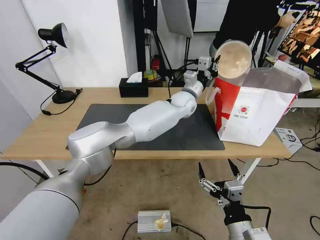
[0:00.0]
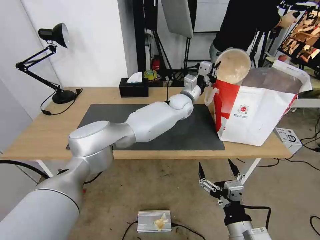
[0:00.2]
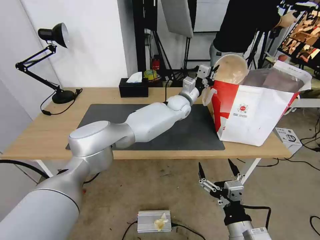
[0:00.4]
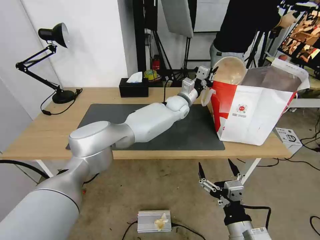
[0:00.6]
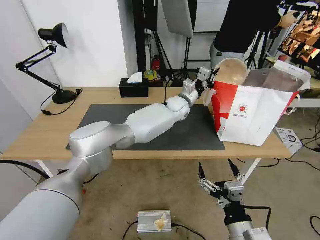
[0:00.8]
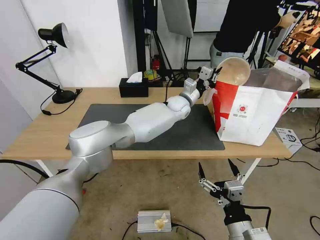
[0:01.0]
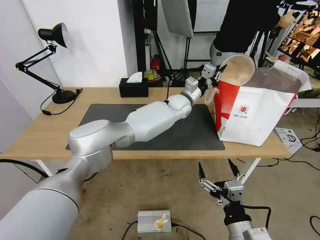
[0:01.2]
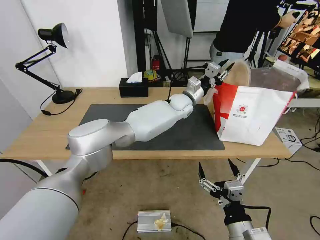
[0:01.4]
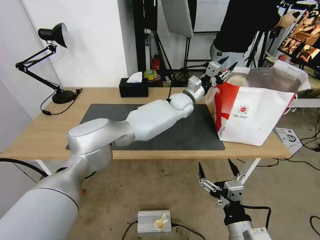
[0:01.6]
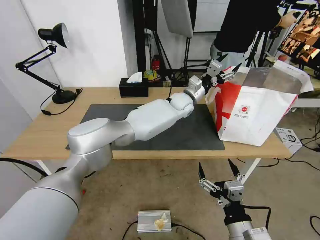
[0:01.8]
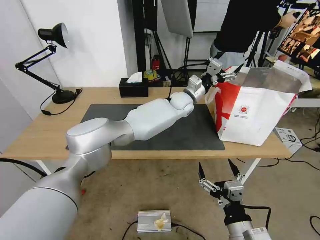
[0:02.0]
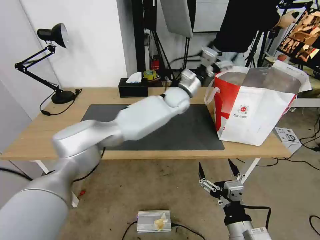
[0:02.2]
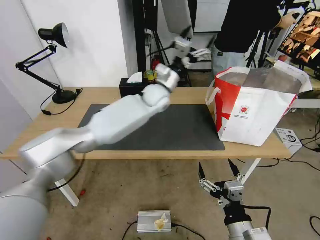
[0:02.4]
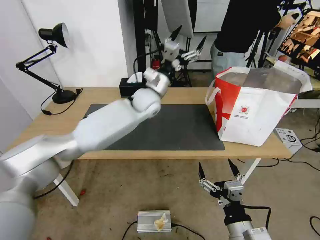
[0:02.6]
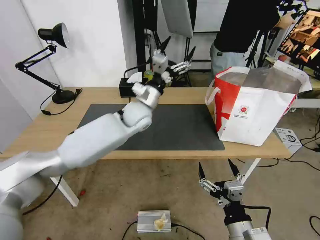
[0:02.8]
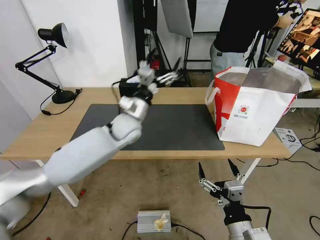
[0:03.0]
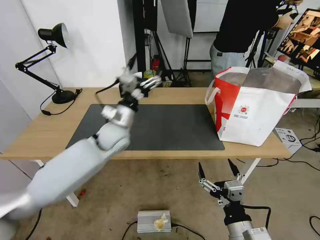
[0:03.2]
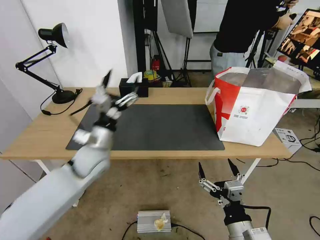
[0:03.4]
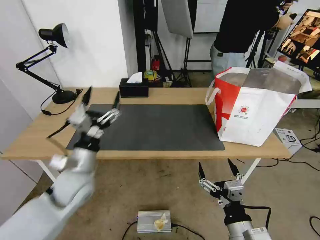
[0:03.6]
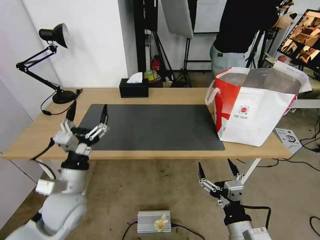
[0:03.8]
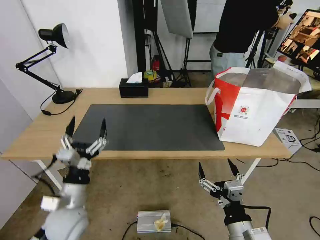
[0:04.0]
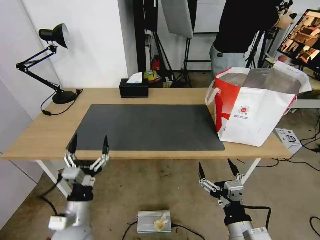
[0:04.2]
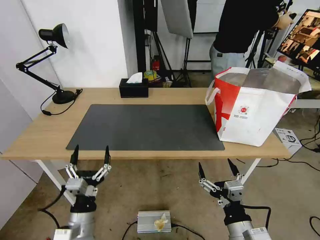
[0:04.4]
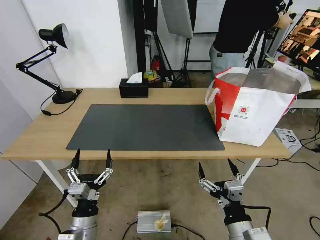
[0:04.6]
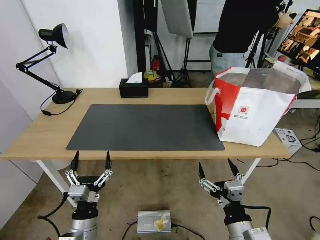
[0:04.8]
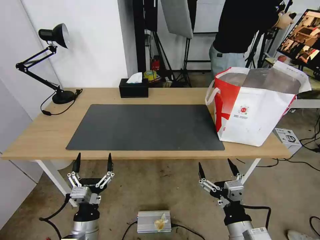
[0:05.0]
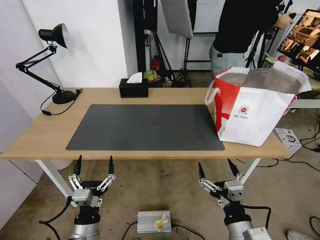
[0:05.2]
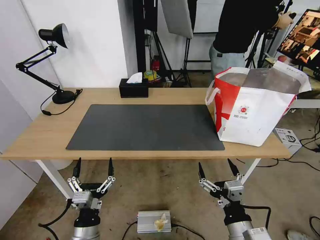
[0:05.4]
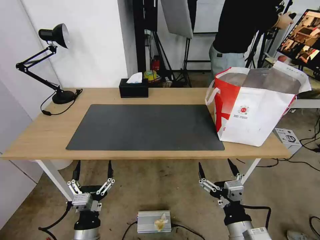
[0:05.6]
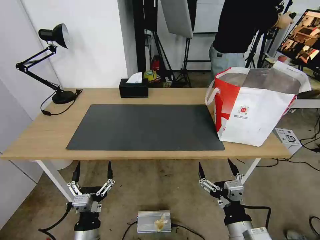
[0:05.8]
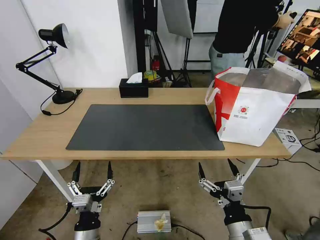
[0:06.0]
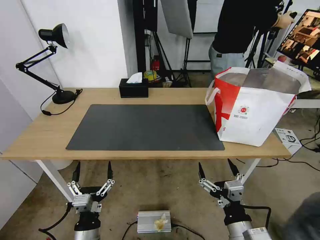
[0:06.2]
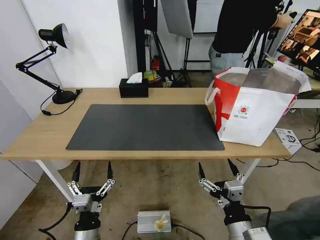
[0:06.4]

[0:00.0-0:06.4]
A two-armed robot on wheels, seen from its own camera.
Task of the whole recording: Pick up the trash from the table and place it into the takeout bag.
0:00.0 to 0:01.6: The left gripper opens up.
0:01.6 to 0:03.2: The left gripper travels to the left and backward by about 30 cm, and opens.
0:03.2 to 0:04.8: The left gripper goes some 30 cm backward and downward.
0:04.8 to 0:06.4: There are only small adjustments of the grippers.

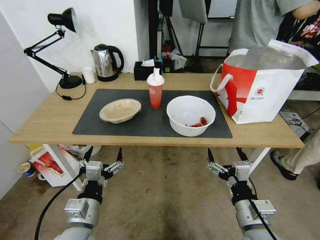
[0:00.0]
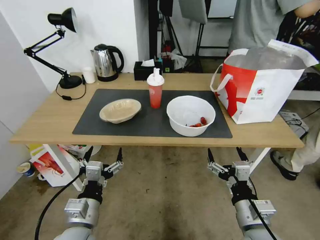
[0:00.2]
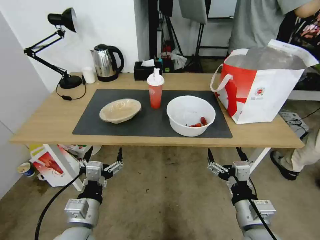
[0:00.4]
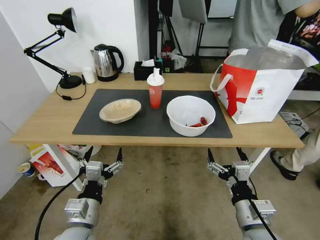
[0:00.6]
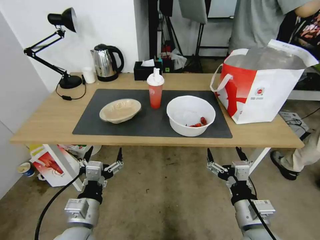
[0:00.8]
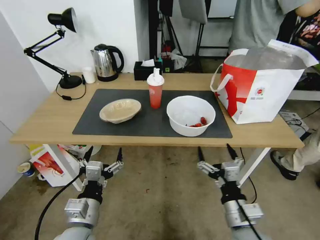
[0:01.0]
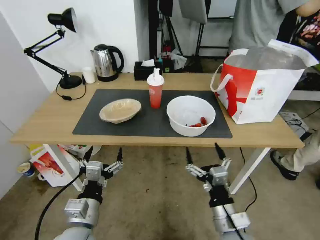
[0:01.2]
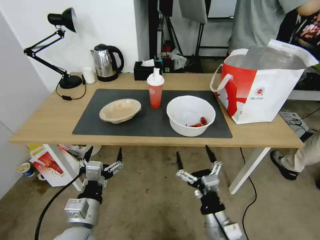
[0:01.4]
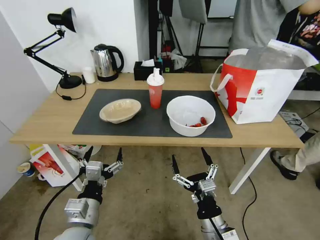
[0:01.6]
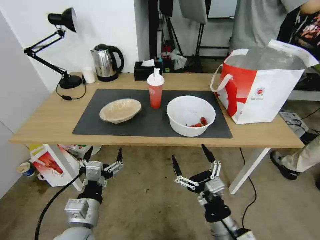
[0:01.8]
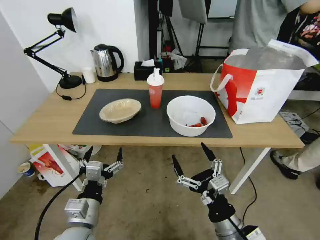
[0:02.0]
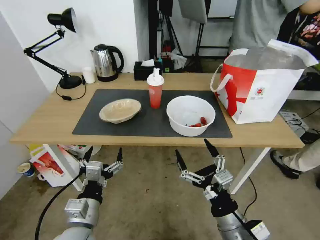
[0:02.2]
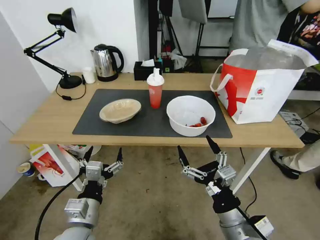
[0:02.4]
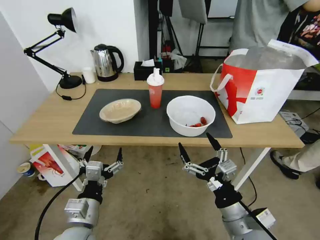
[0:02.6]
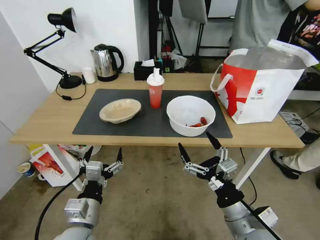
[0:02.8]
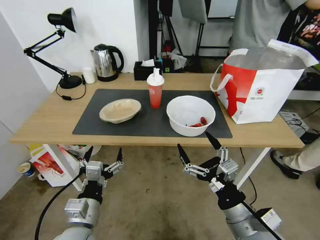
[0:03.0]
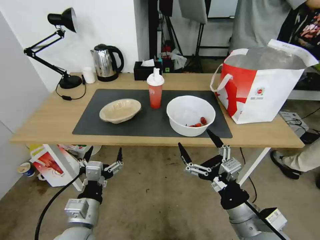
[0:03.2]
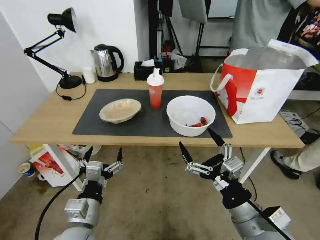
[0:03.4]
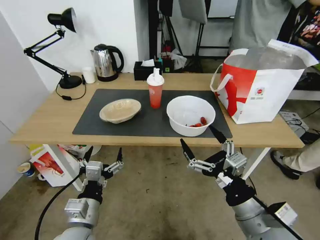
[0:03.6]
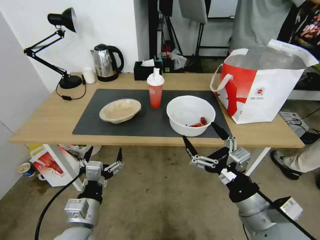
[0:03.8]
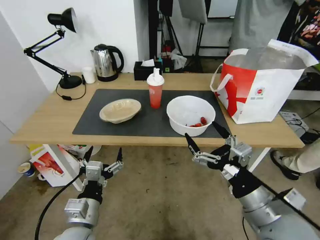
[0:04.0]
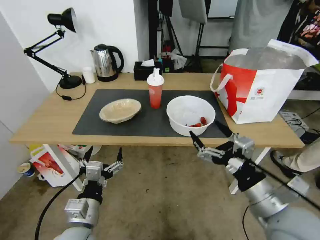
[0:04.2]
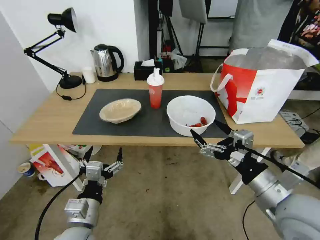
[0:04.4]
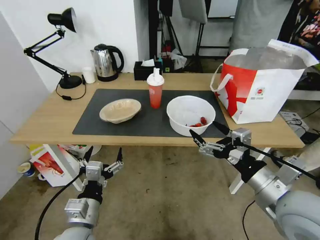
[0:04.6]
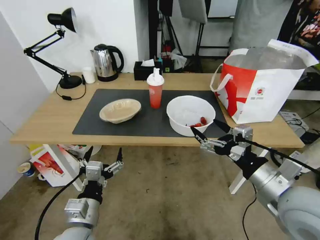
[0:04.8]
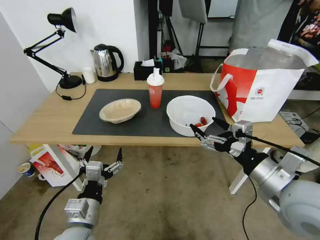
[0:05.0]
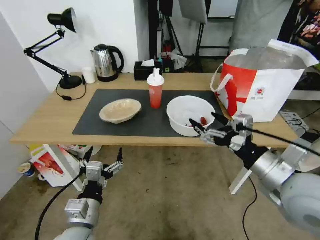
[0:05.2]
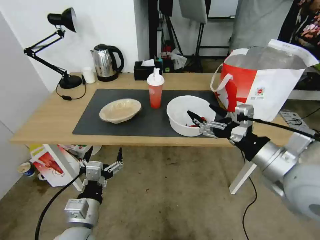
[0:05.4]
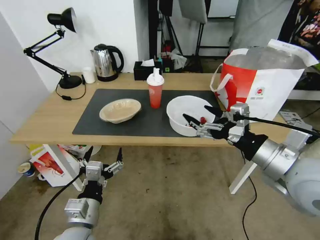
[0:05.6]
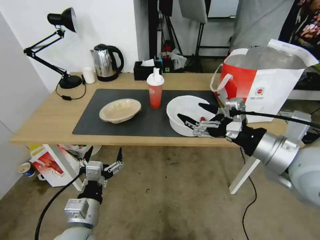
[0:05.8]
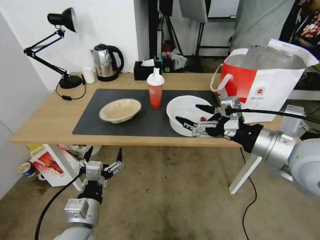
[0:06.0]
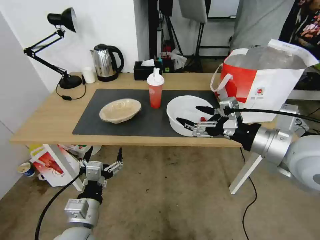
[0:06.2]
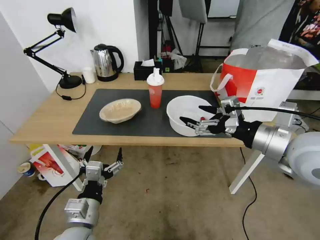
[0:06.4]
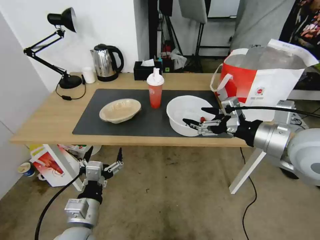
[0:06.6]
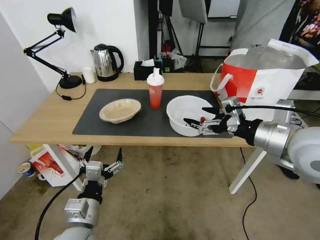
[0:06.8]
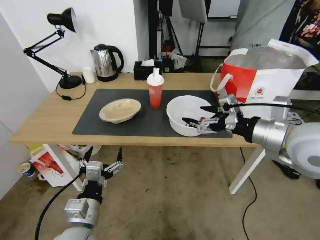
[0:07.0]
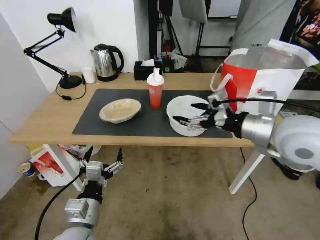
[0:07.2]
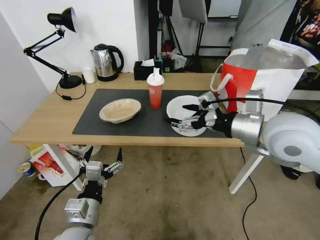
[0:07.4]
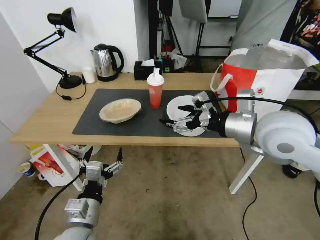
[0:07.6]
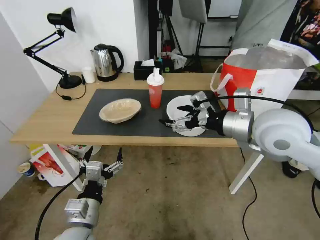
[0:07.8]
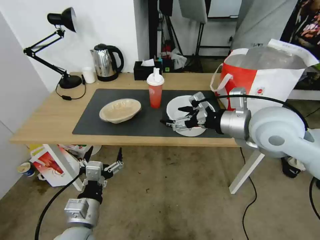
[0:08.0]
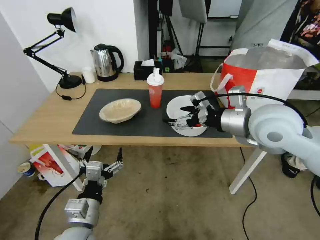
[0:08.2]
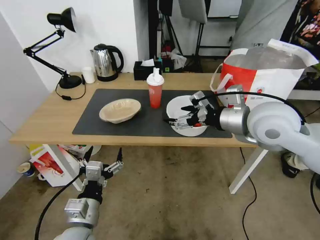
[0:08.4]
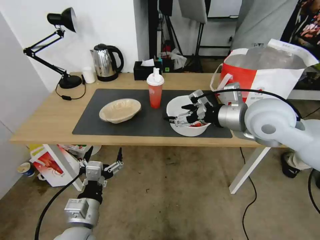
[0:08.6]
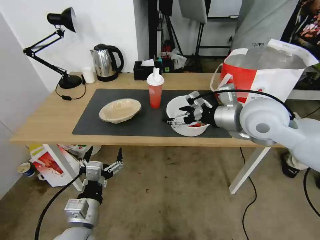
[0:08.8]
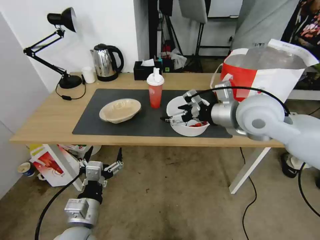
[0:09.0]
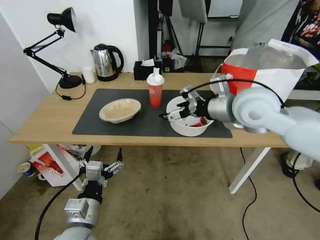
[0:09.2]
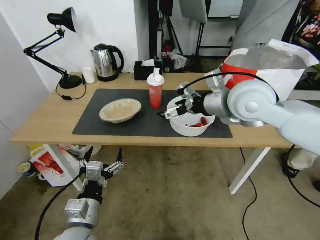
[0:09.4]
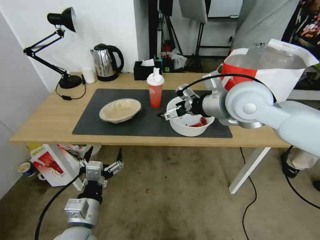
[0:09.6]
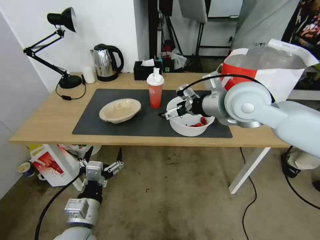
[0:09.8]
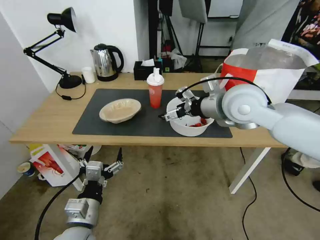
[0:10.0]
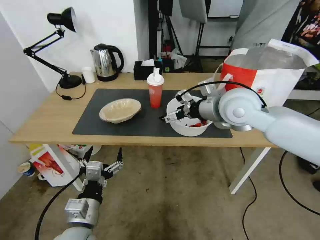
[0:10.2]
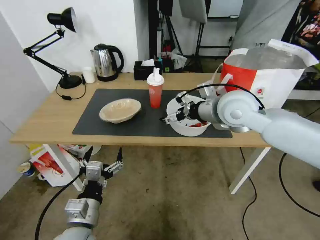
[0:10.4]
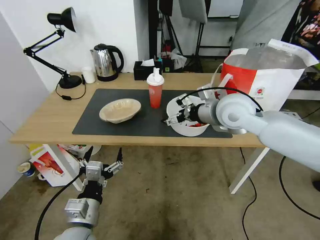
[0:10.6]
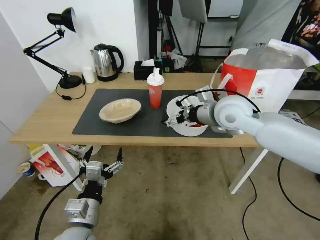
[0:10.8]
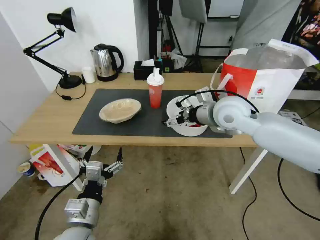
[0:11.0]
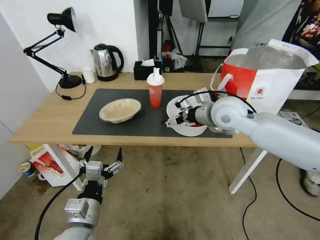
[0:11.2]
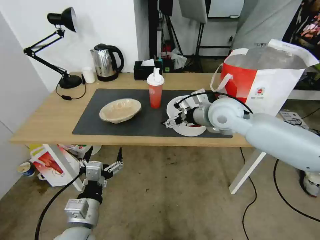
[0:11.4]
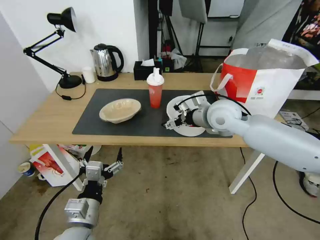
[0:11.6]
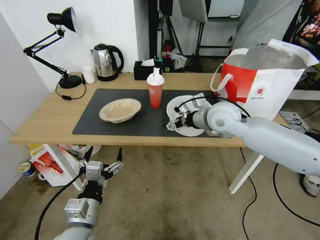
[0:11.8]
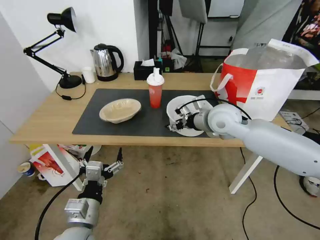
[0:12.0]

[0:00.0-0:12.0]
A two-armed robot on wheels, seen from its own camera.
Task of the whole recording: Pick up the trash from the table and place it into the takeout bag.
0:01.6 to 0:03.0: The right gripper goes roughly 10 cm upward and to the right.
0:03.0 to 0:04.4: The right gripper goes about 10 cm upward and to the right.
0:04.4 to 0:06.0: The right gripper travels upward and forward by roughly 10 cm.
0:06.0 to 0:07.6: The right gripper moves forward, about 5 cm.
0:07.6 to 0:09.0: The right gripper is displaced forward by some 5 cm.
0:09.0 to 0:10.4: The grippers make only small movements.
0:10.4 to 0:12.0: The right gripper goes some 5 cm downward, and closes.

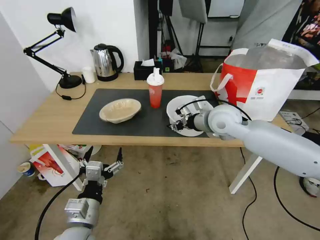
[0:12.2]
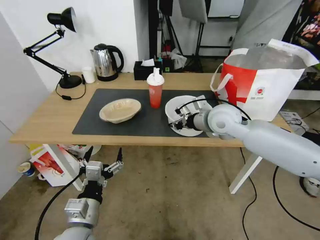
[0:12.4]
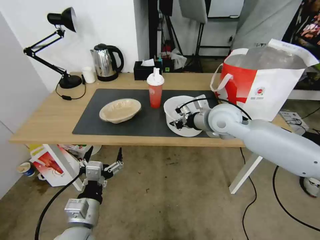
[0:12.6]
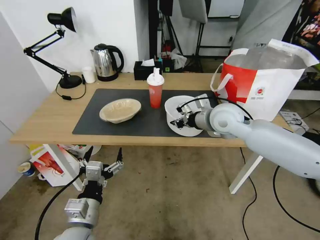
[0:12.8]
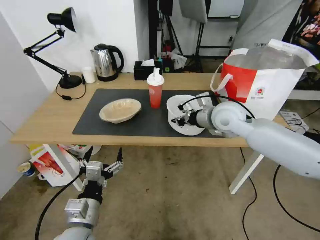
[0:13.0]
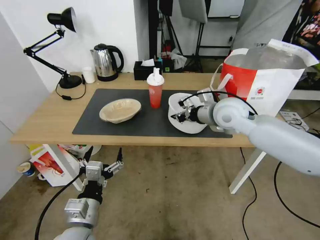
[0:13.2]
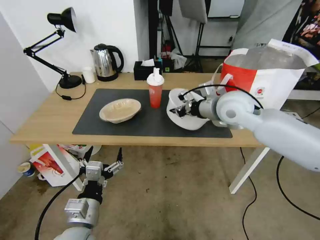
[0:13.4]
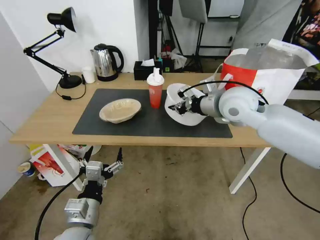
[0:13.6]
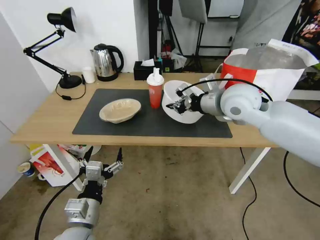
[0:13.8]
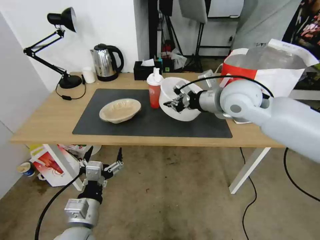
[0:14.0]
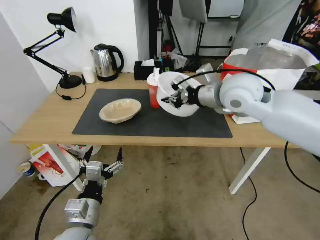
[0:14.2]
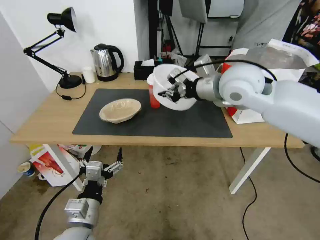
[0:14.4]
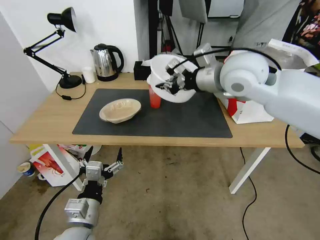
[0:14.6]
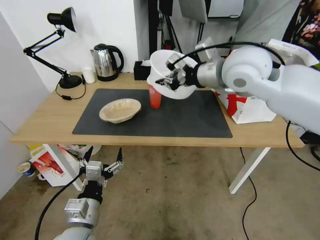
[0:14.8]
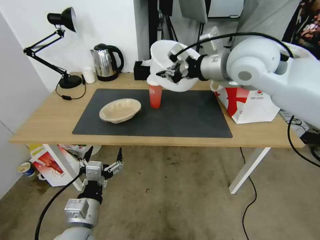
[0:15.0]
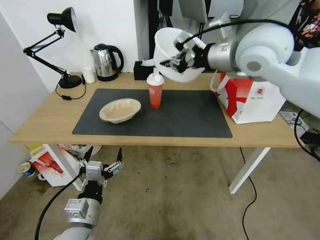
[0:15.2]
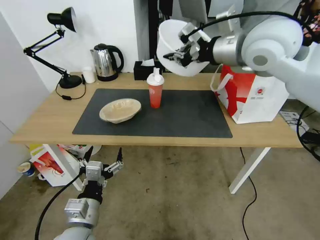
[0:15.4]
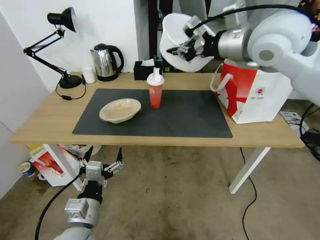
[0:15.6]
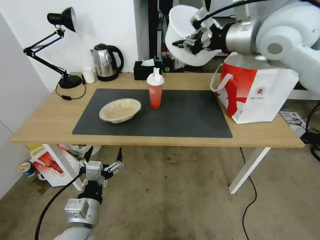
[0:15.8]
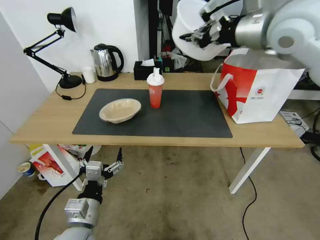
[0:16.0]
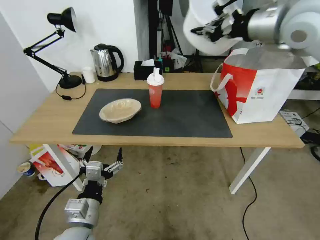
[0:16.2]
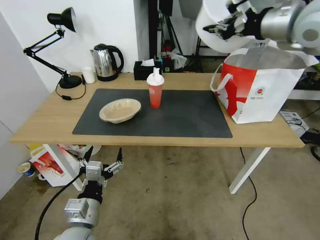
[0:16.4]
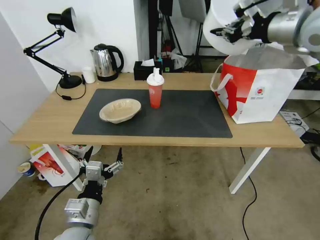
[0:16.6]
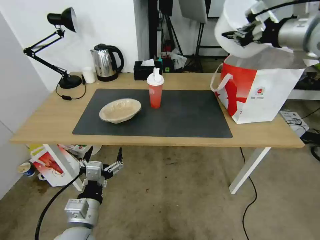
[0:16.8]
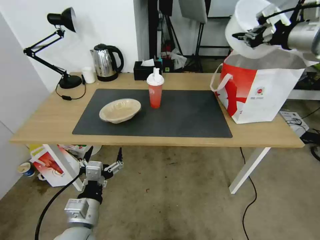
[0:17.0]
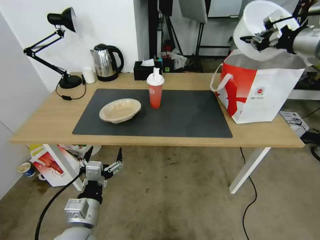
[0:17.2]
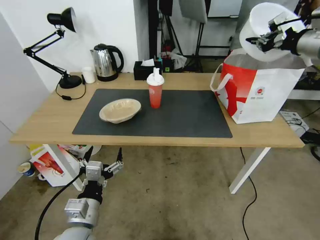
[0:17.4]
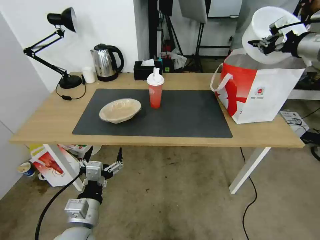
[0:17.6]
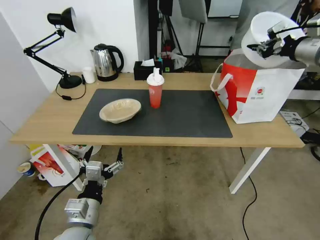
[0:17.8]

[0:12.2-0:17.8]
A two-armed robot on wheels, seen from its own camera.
Task of the whole recording: Pick up the trash from the table and place it into the takeout bag.
0:12.2 to 0:13.6: The right gripper moves upward, about 5 cm.
0:13.6 to 0:15.0: The right gripper travels upward by some 10 cm.
0:15.0 to 0:16.4: The right gripper travels to the right and upward by roughly 15 cm.
0:16.4 to 0:17.8: The right gripper shifts roughly 15 cm to the right and downward.
